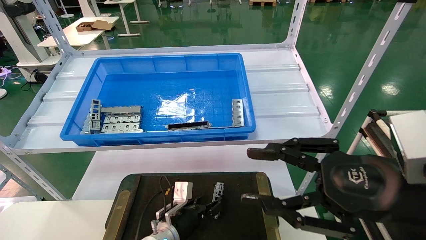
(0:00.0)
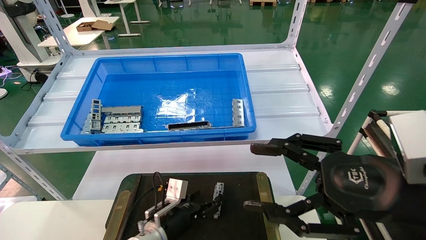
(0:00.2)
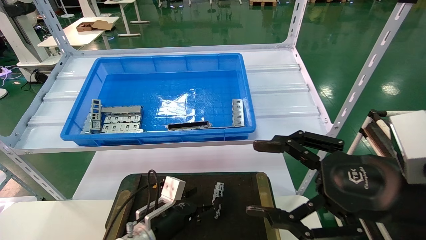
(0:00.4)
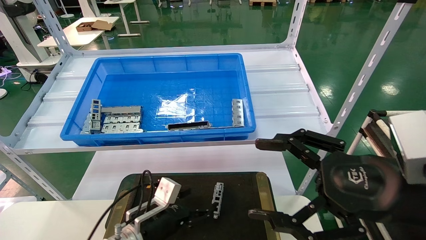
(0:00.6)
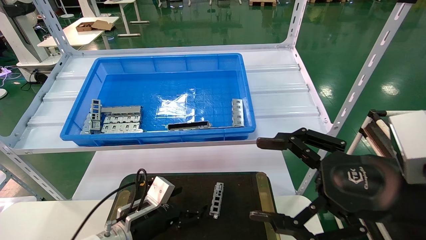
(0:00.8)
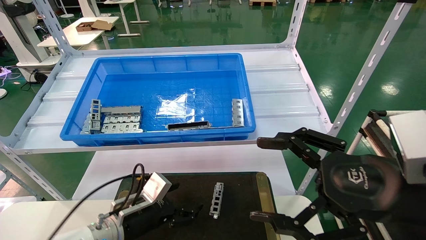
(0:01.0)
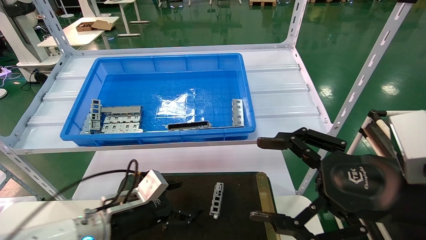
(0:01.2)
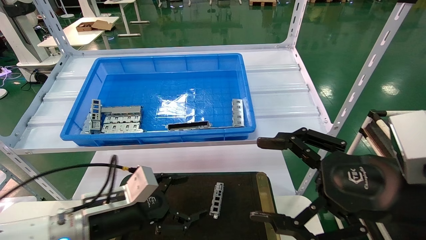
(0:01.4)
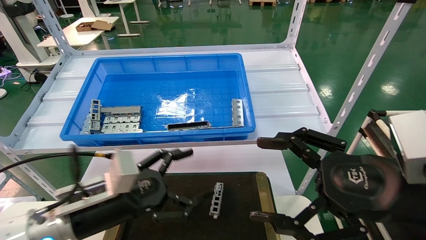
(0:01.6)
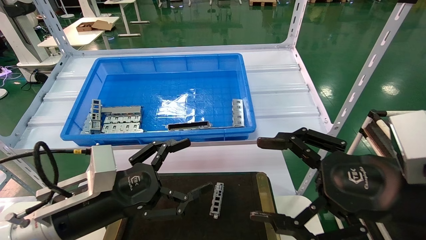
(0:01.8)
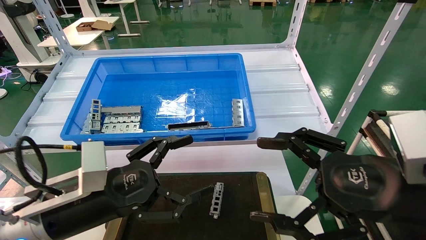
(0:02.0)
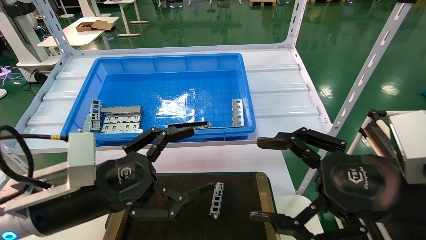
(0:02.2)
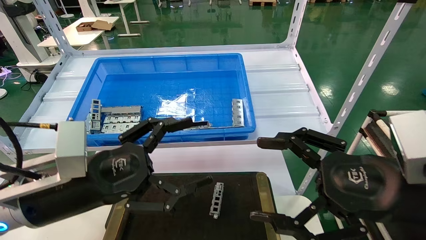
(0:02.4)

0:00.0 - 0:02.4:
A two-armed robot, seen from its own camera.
Task of the whole recording: Grasp the part with one hand and place it on the black container.
0:00.0 - 0:01.2: The right gripper opens up, while the left gripper travels upward, to the left and backward by roughly 15 cm, and opens its fingers.
0:01.2 - 0:02.4: The left gripper goes some 15 cm upward and backward.
